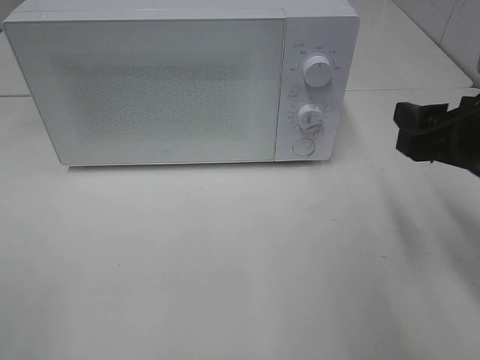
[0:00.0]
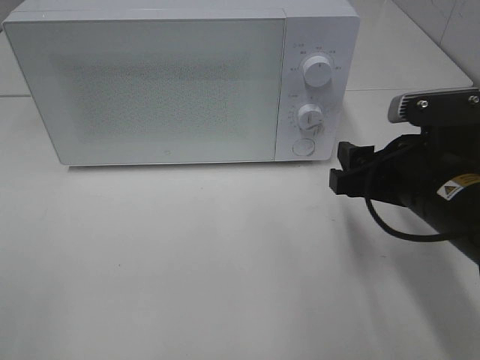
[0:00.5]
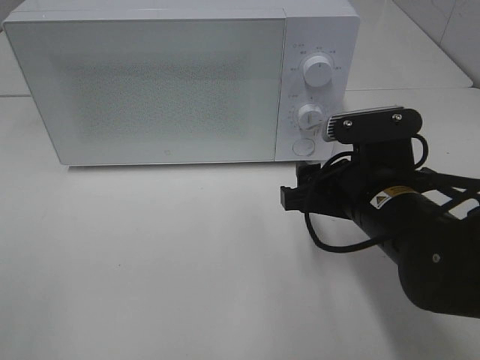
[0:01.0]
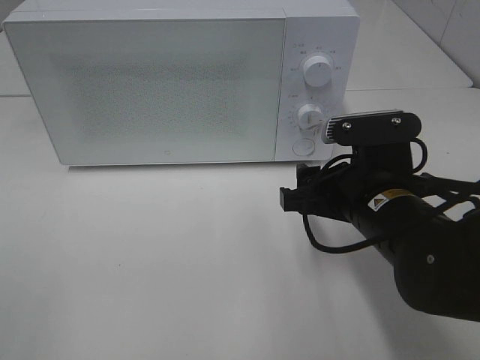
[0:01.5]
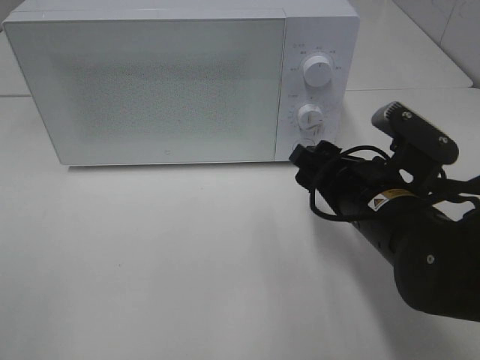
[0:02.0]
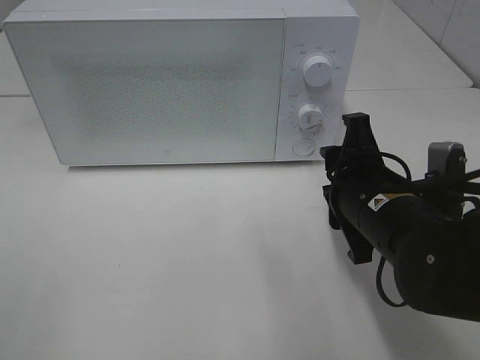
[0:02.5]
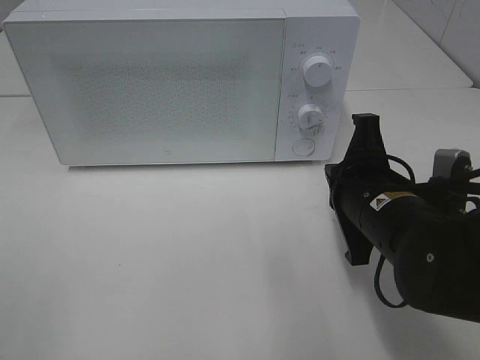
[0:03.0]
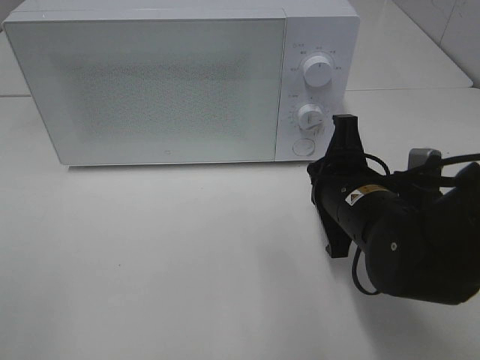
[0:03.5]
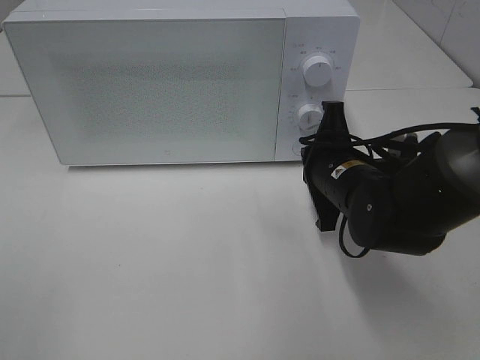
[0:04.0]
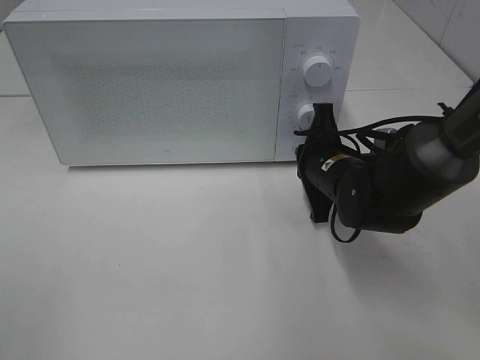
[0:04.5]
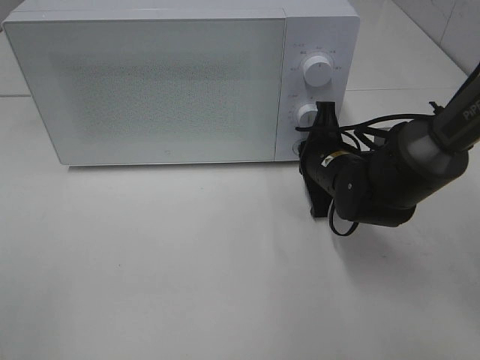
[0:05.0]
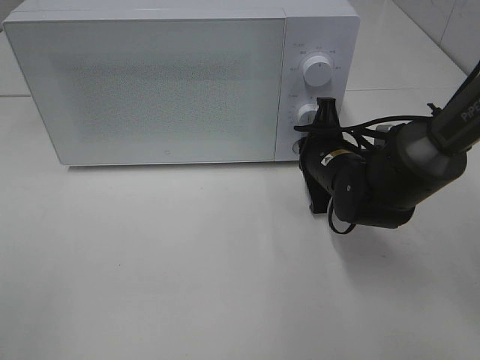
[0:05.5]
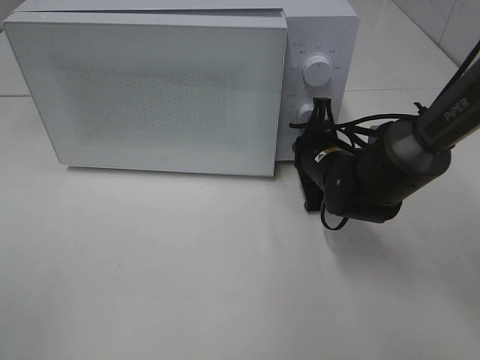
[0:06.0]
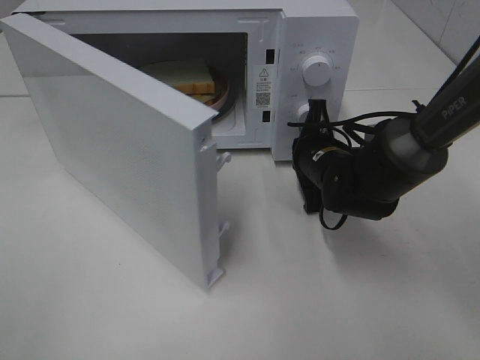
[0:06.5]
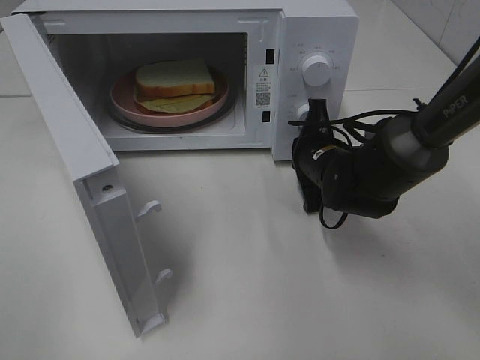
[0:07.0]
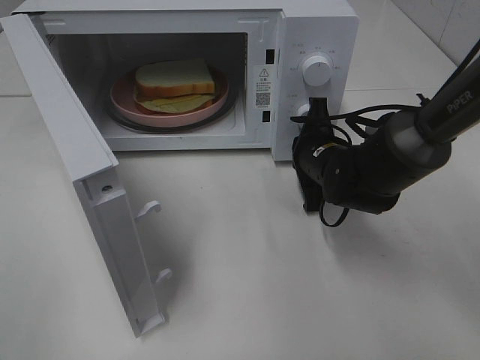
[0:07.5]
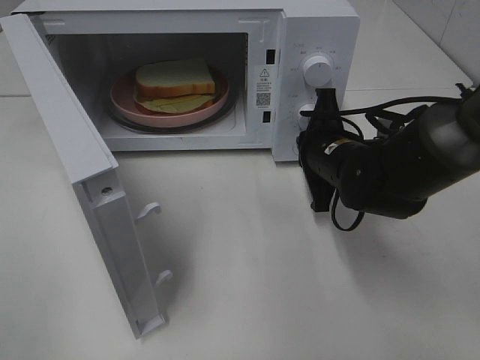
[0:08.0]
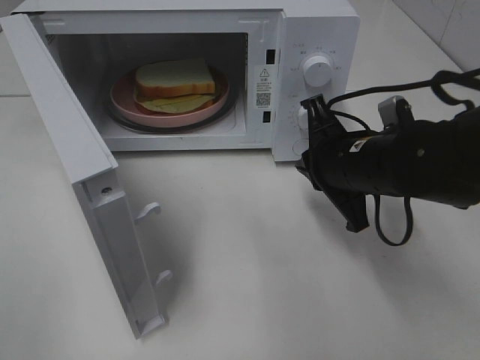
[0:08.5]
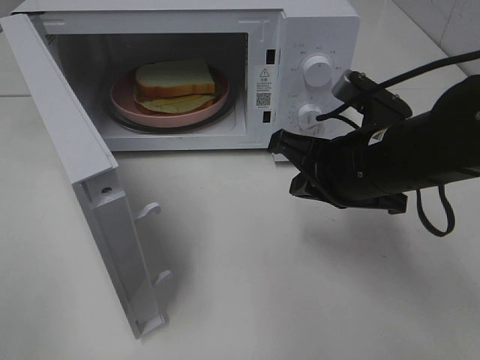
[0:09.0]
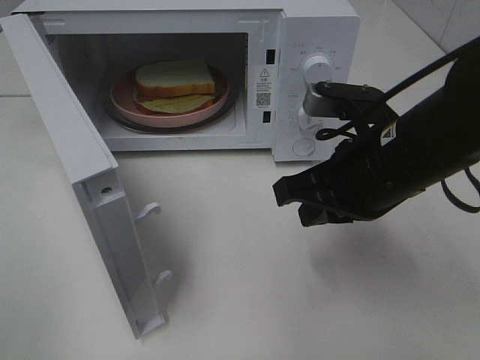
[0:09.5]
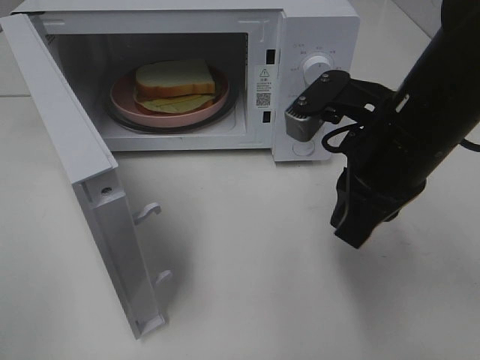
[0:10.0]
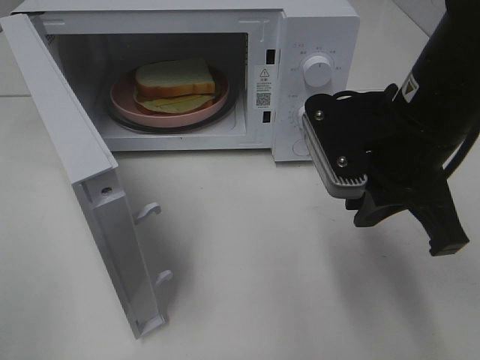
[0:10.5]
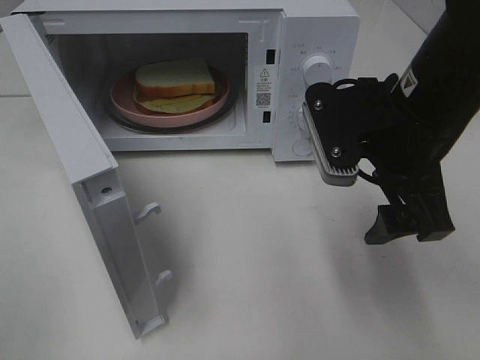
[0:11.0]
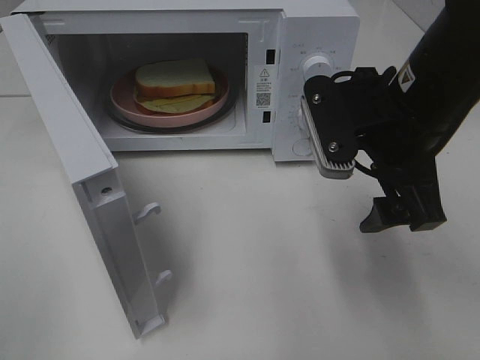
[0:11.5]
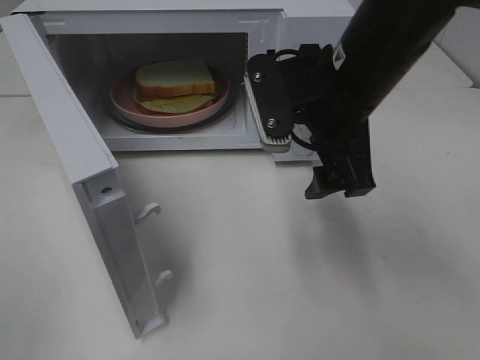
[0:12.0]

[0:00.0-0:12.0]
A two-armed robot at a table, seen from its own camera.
Task of the whole recording: Heat Sandwich.
Step, 0.0 to 8.0 s: Right hand: press the switch.
0.0 to 2.0 s: The right gripper heads to the left and downward, covering about 10 cm.
2.0 to 4.0 s: The right gripper is displaced forward by approximately 5 cm, and closes its fingers.
4.0 to 6.0 s: The right gripper shifts some 5 cm forward.
8.0 to 10.0 s: The right gripper is displaced upward and backward by approximately 15 cm.
10.0 to 12.0 s: The right gripper is displaced forward by approximately 5 cm, and opens its fingers.

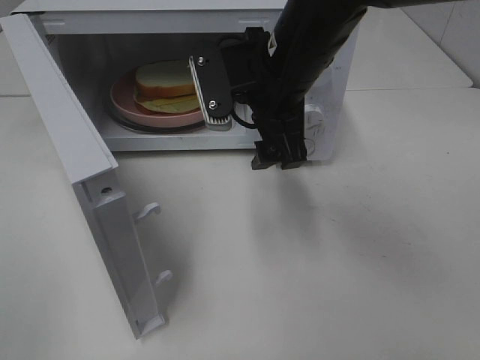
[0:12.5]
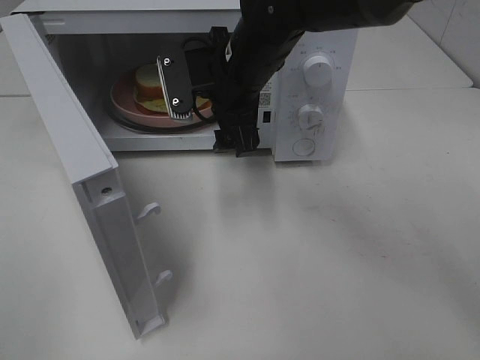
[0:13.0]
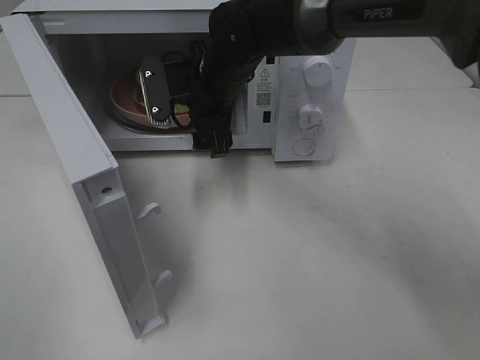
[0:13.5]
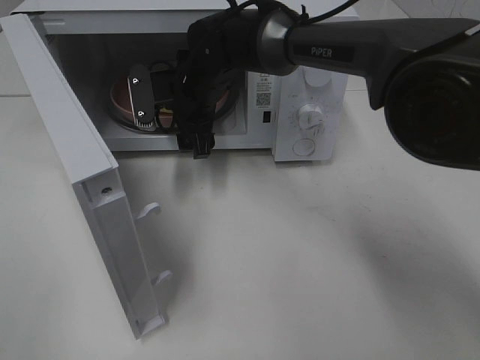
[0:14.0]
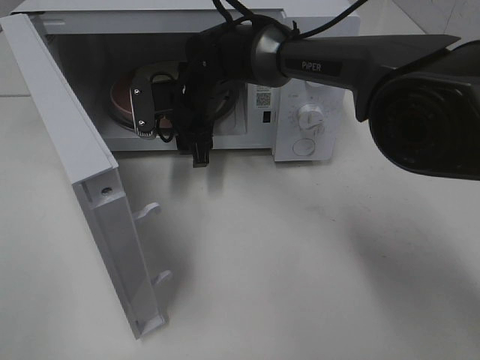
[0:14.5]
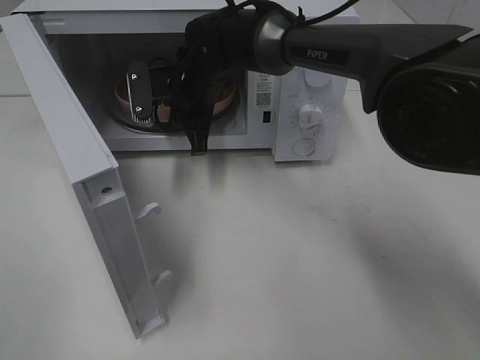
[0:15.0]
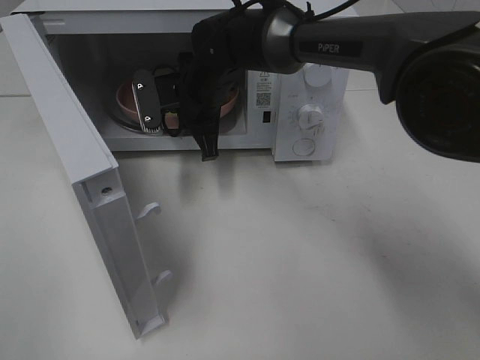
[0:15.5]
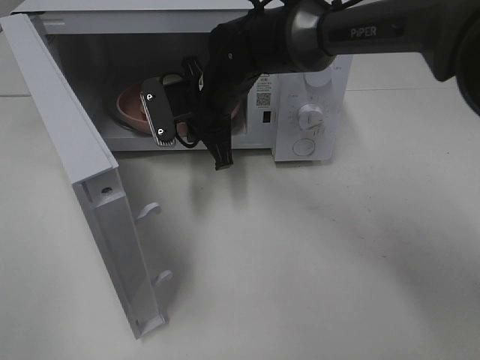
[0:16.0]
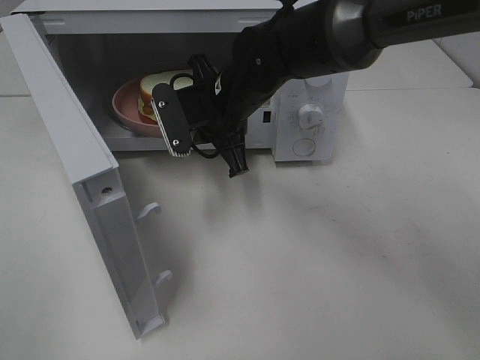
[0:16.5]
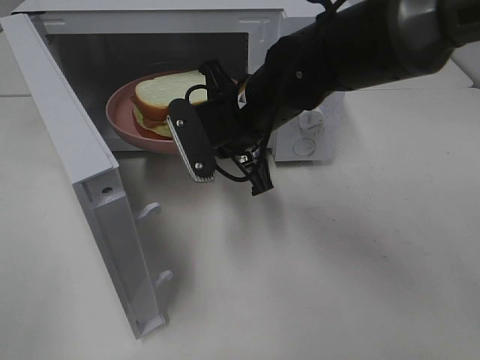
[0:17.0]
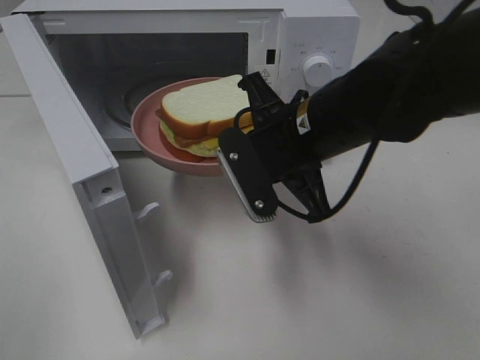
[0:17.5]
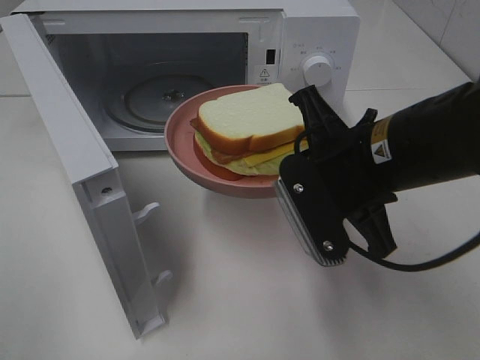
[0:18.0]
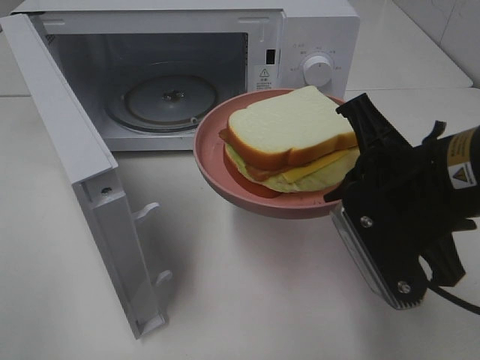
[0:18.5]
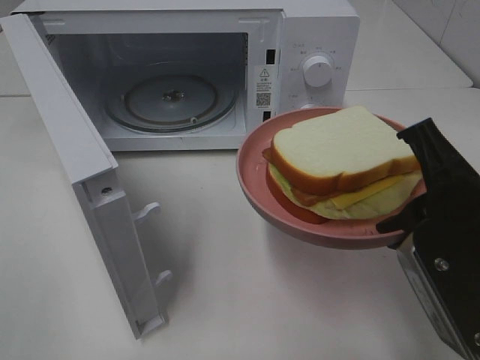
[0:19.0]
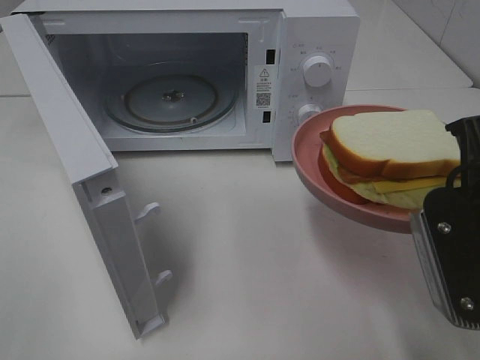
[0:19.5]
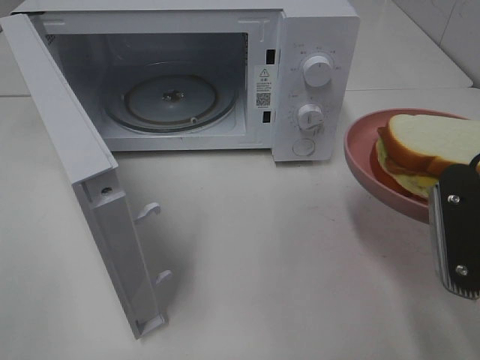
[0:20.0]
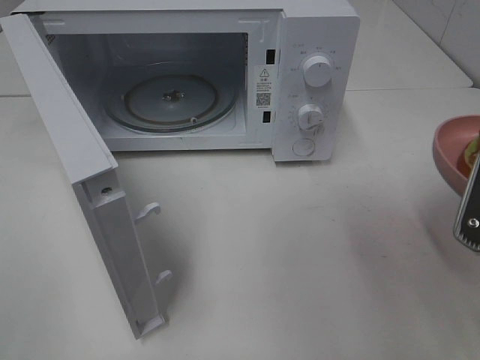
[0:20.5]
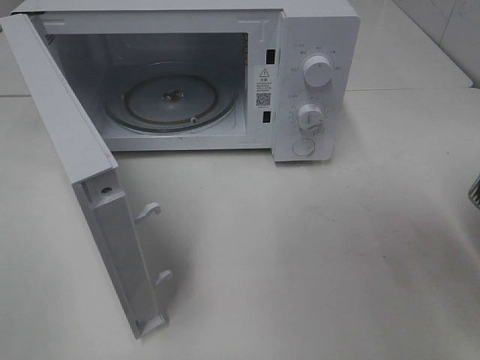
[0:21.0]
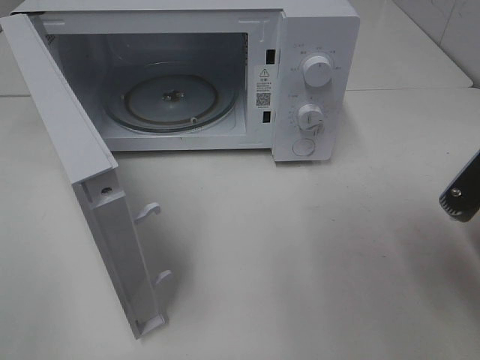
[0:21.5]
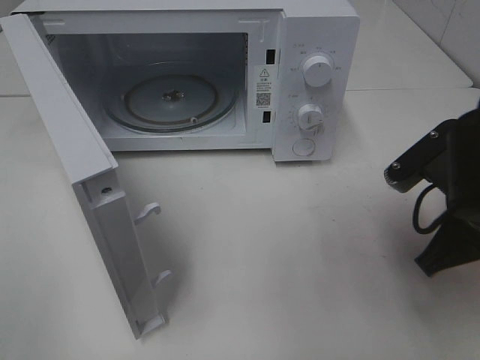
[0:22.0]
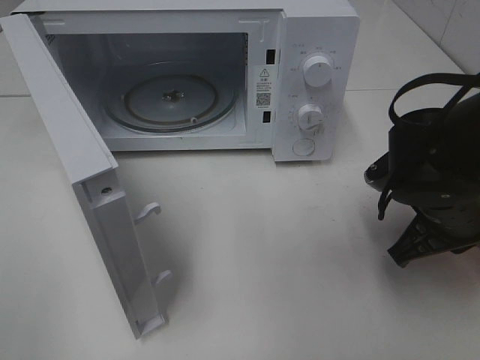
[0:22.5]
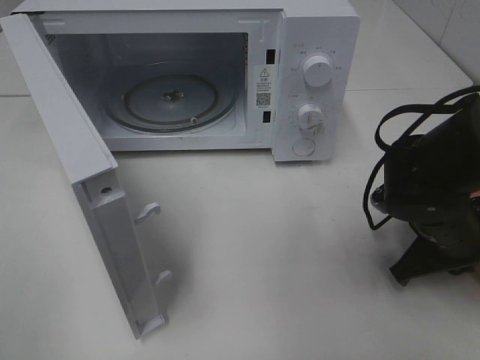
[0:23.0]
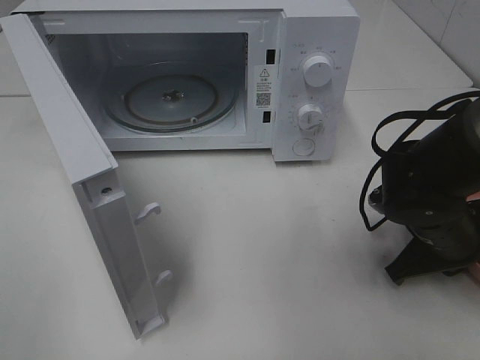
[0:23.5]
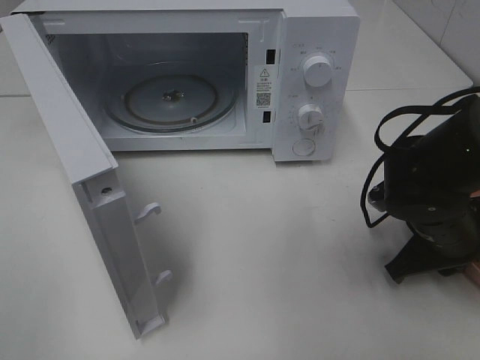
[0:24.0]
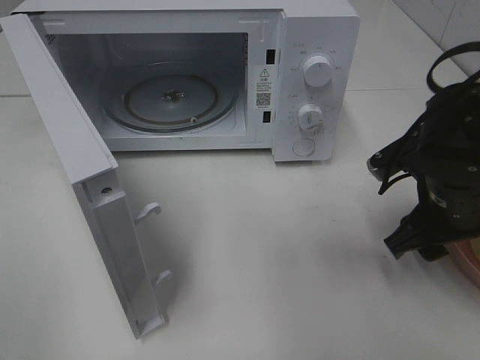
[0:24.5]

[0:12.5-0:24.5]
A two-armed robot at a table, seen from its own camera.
Task of the whole recording: Heat Sandwich.
Step, 12.5 to 15.0 s: Right hand: grab the plate with the sandwich.
12.5 to 14.5 s: The right gripper goes some 20 cm forward, downward and to the left, and closes its fingers.
14.5 to 16.5 s: The right gripper is displaced backward by roughly 5 cm, and closes its fingers.
16.5 to 18.5 s: The right gripper shifts some 25 cm backward and to the right.
18.5 to 20.5 s: The right gripper moves to the right, about 10 cm.
20.5 to 22.5 s: The right gripper shifts approximately 15 cm forward and downward.
22.5 to 24.5 s: The right gripper opens.

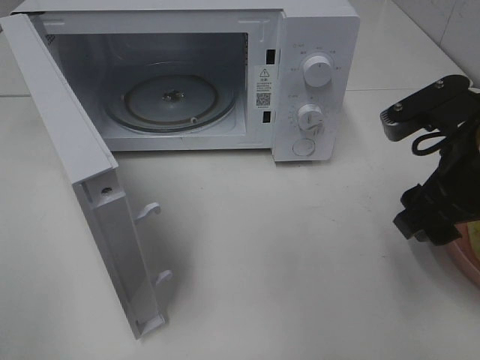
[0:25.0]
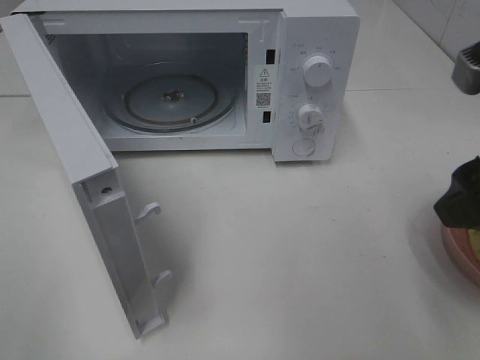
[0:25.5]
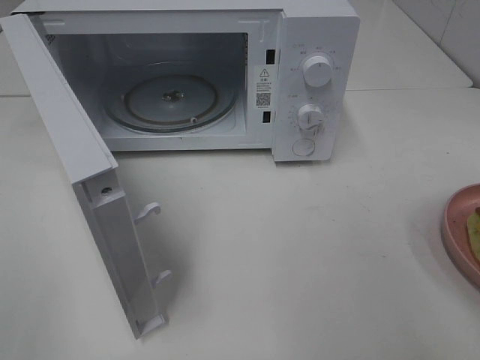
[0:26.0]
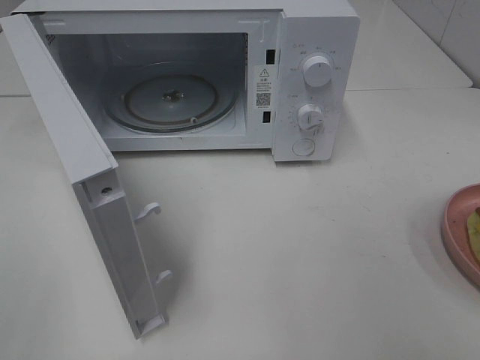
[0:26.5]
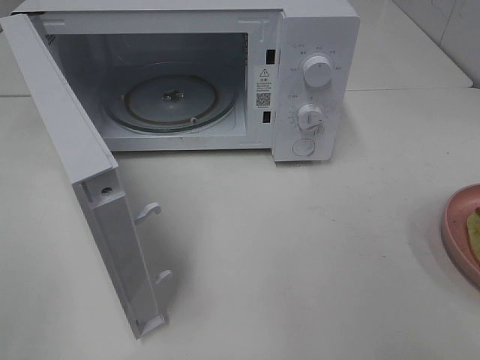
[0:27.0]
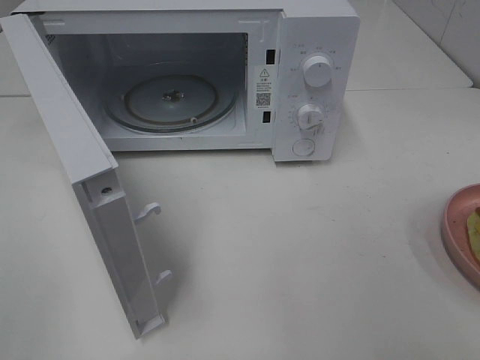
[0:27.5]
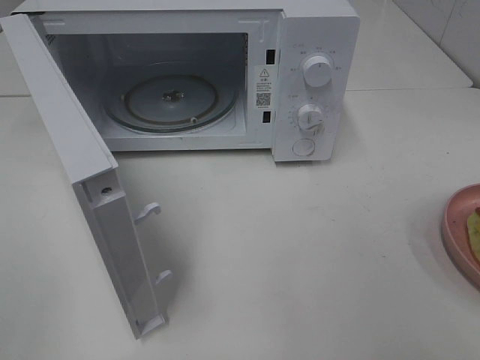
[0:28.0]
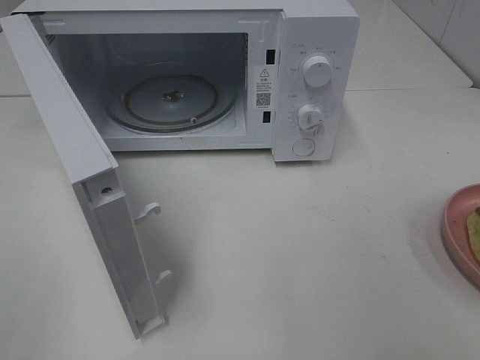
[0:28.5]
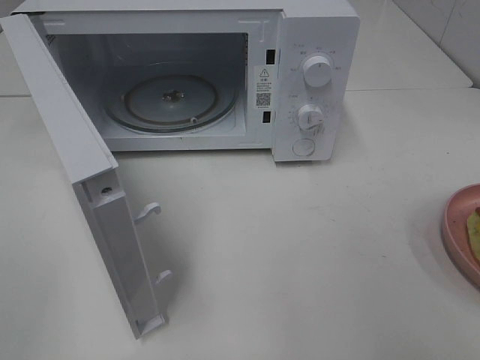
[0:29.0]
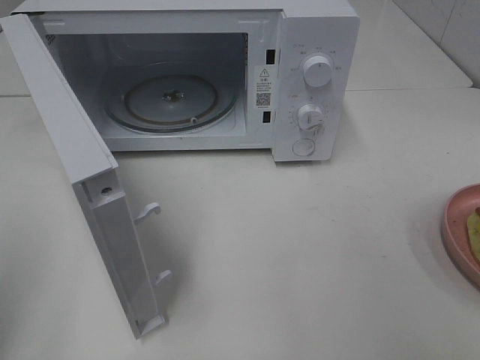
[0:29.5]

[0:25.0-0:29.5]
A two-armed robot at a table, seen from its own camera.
Task of the whole recording: Heat Sandwich.
25.0 to 27.0 s: The right gripper moves backward and to the right, about 25 cm.
